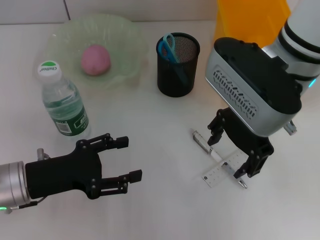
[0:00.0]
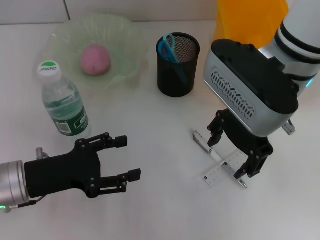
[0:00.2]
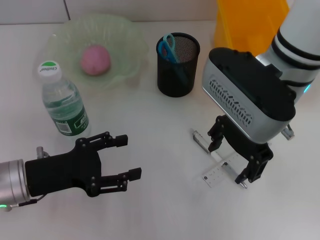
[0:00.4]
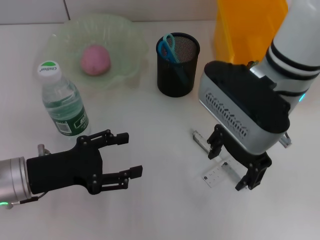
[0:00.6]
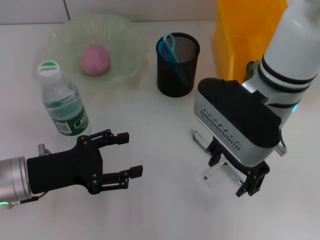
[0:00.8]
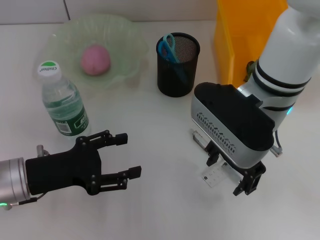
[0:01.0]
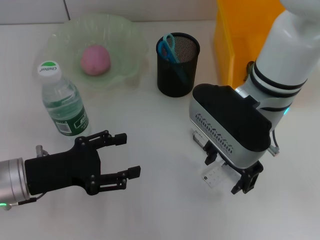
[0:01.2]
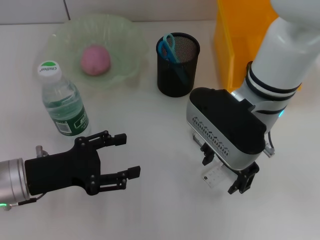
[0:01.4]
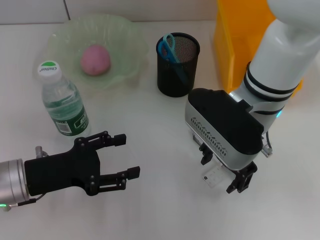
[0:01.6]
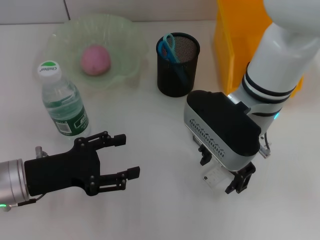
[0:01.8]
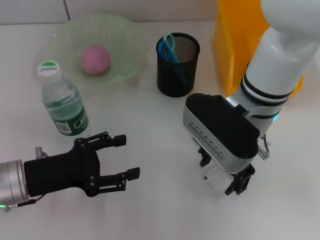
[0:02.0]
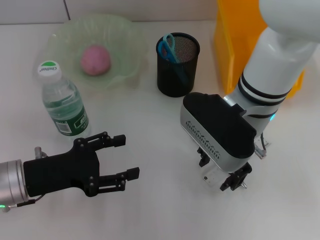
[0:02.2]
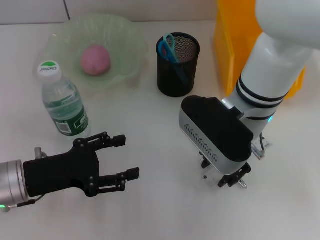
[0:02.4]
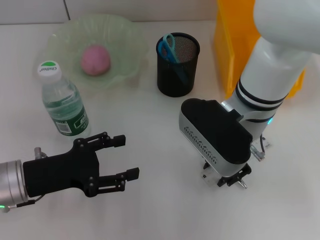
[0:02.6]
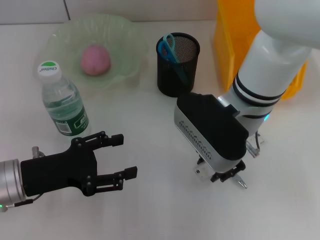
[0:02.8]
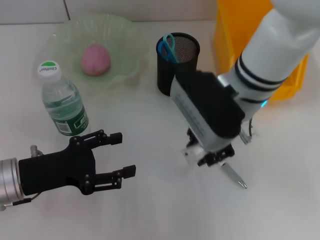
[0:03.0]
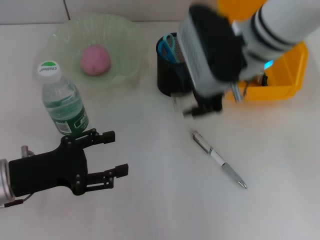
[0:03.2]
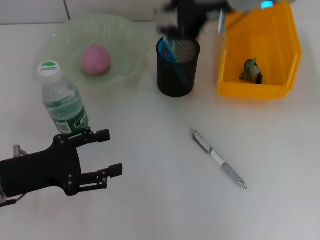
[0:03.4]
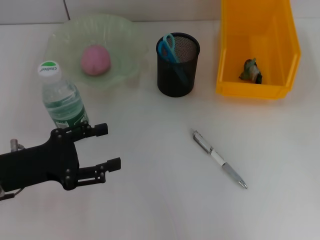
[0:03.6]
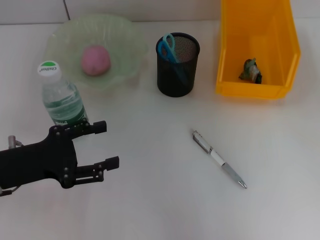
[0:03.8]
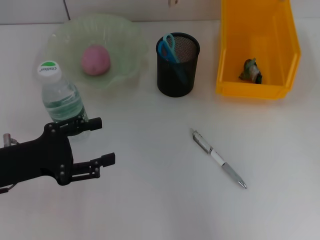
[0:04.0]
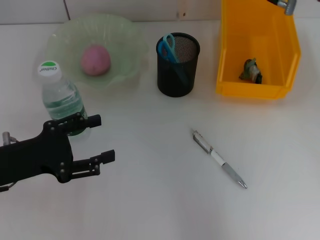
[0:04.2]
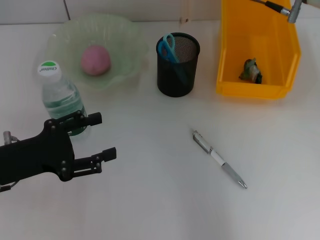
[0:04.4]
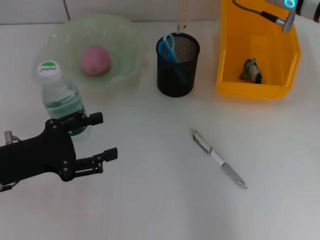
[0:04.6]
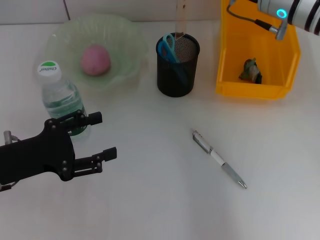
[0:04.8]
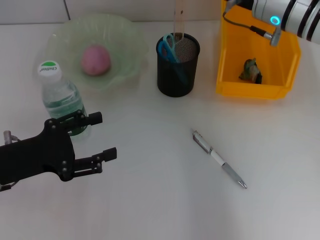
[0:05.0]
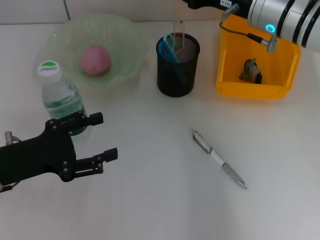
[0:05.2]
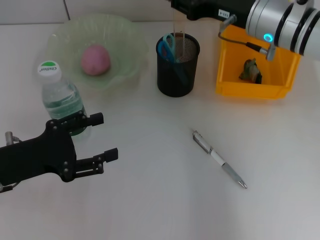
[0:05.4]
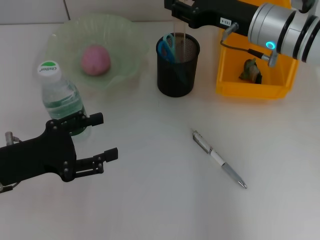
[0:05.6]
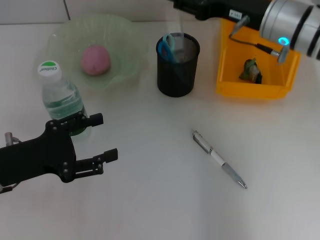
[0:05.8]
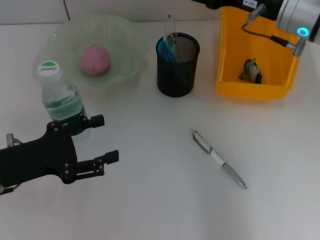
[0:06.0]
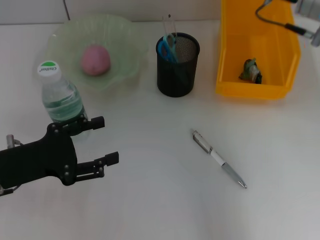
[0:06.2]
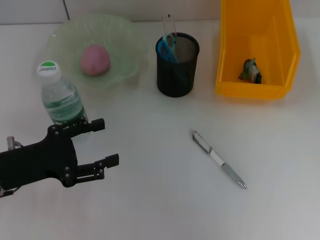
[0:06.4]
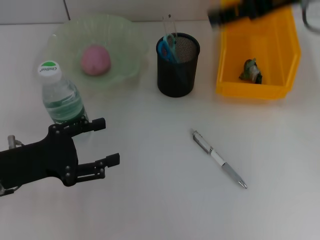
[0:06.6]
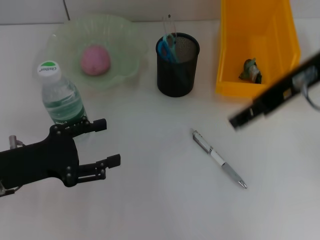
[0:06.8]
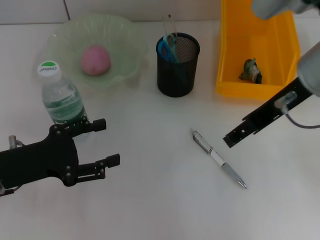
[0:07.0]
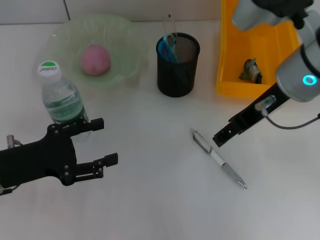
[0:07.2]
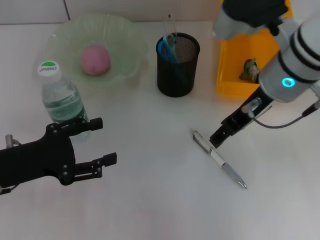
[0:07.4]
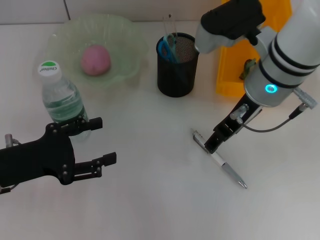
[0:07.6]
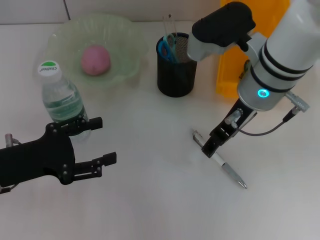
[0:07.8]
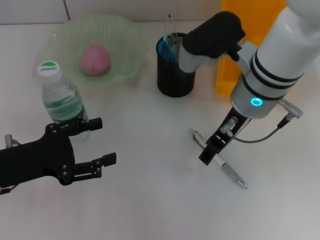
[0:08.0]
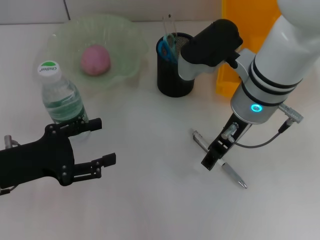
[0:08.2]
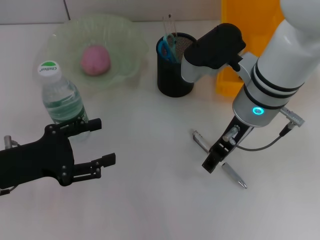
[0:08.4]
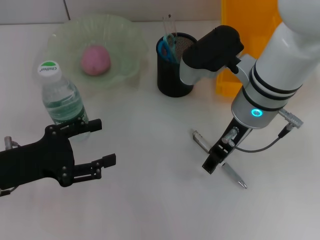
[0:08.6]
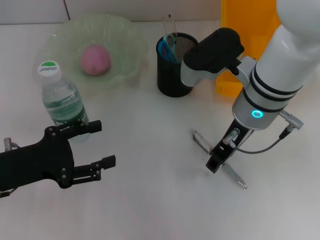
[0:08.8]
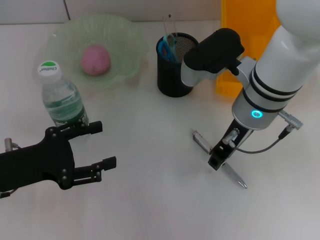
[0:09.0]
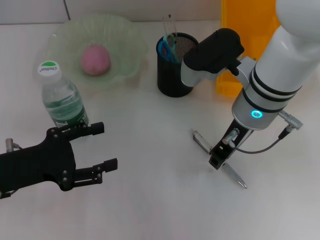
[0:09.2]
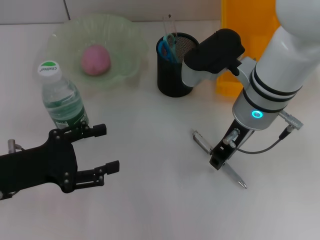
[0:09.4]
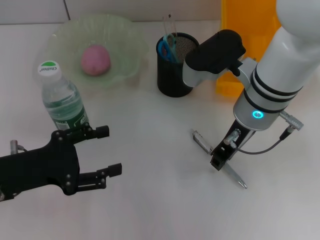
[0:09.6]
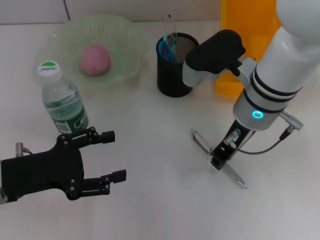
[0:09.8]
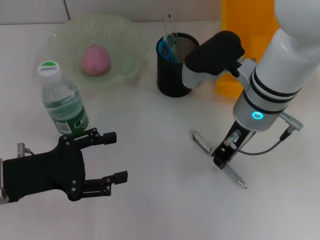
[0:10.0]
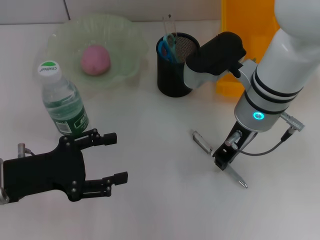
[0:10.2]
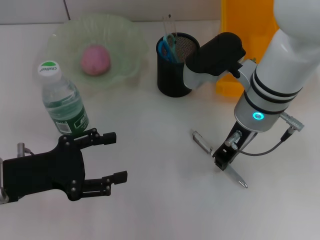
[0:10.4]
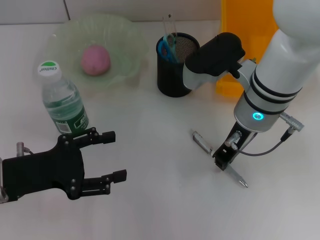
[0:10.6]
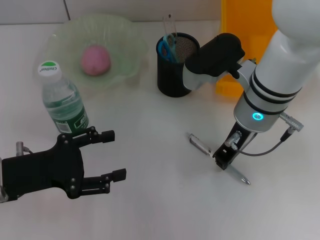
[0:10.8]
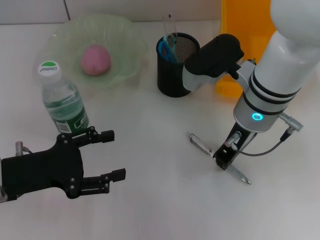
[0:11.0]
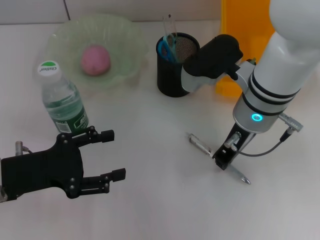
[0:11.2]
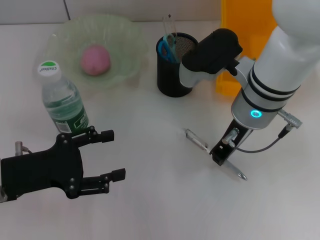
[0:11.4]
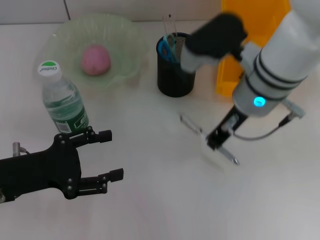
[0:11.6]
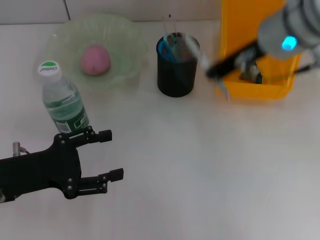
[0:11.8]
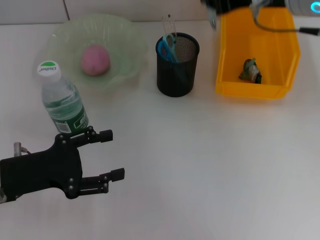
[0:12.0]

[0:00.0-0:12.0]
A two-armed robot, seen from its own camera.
Step, 0:00.0 to 0:02.4: Grab the ruler with the right hand.
Step, 0:02.6 to 0:05.8: Place the ruler into the pen holder with the right hand.
Step, 0:06.0 to 0:11.0: Grab the gray spring-action pen with the right hand.
0:00.0 to 0:01.6: The right gripper heads downward, covering about 5 cm.
0:01.6 to 0:03.0: The right gripper closes its fingers.
0:03.0 to 0:04.4: The right gripper moves to the right, forward and upward, roughly 10 cm.
0:04.4 to 0:06.0: The right gripper opens its fingers.
0:06.0 to 0:07.6: The right gripper travels to the left by approximately 5 cm, and moves about 15 cm upward and comes back.
0:07.6 to 0:09.0: The right gripper closes its fingers.
0:09.0 to 0:10.4: The right gripper closes.
0:10.4 to 0:12.0: The right gripper moves upward, approximately 15 cm.

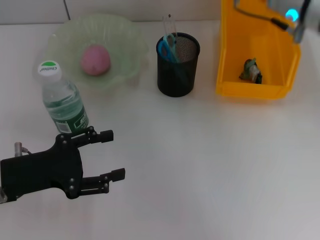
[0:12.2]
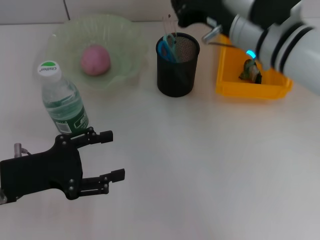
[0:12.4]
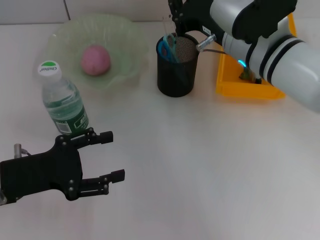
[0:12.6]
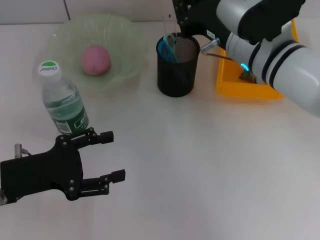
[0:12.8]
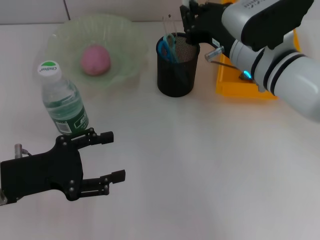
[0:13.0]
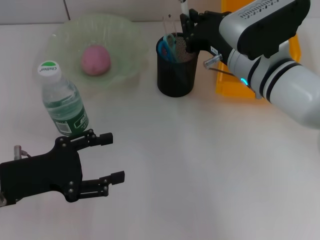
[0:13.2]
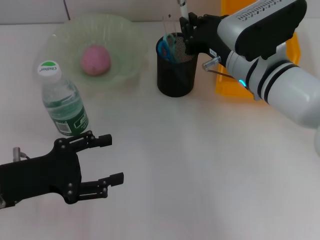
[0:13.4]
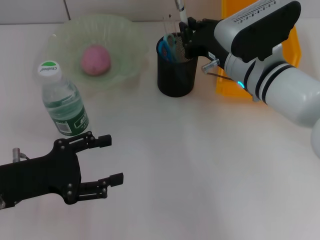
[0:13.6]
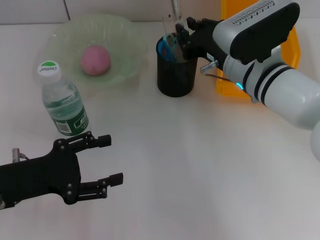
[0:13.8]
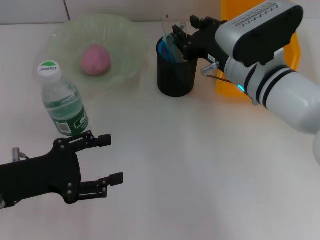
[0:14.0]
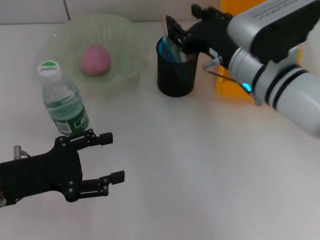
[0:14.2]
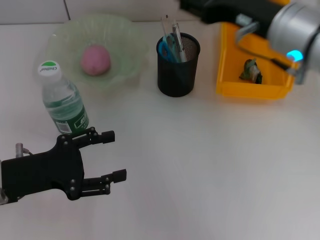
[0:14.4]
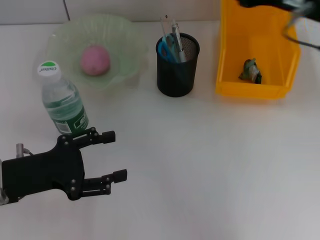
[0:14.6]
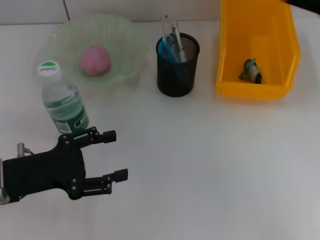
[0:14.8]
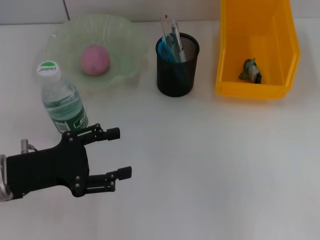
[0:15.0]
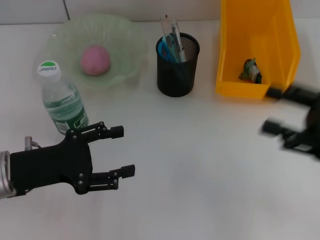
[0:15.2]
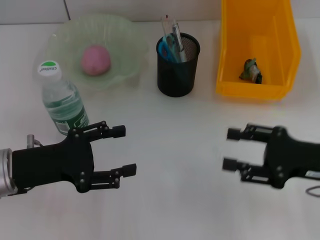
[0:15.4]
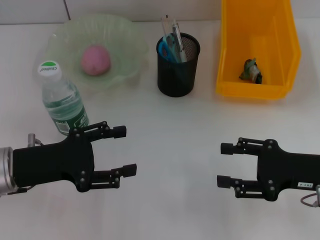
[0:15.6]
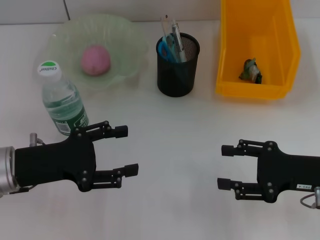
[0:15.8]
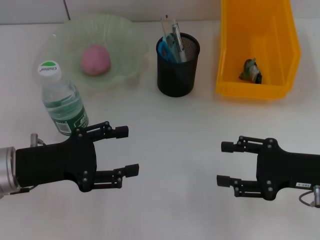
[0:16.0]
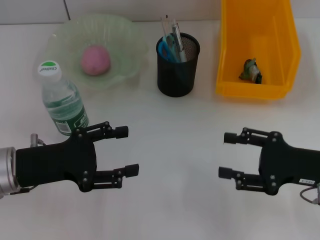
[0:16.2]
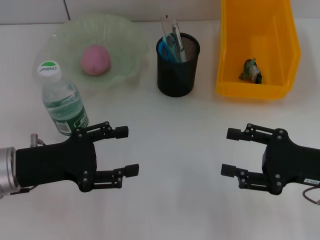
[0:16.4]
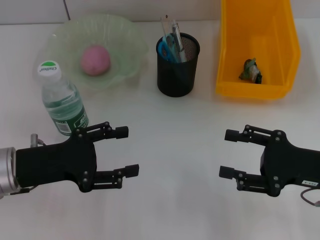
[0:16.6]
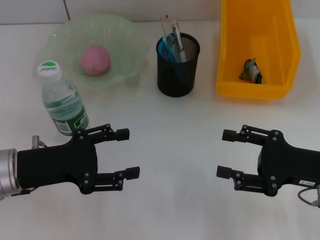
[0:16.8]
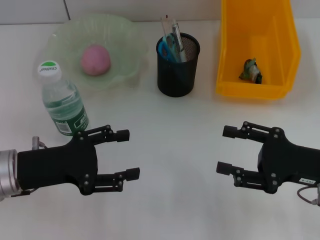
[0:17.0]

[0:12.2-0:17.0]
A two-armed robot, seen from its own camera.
Step, 0:12.2 to 0:14.0: Place the gray spring-action pen into the pen holder with the right hand.
0:12.2 to 0:13.8: The right gripper travels downward by about 10 cm.
0:13.8 to 0:15.4: The right gripper moves to the right and backward, about 20 cm, and opens.
0:15.4 to 0:17.0: The grippers move only a little.
